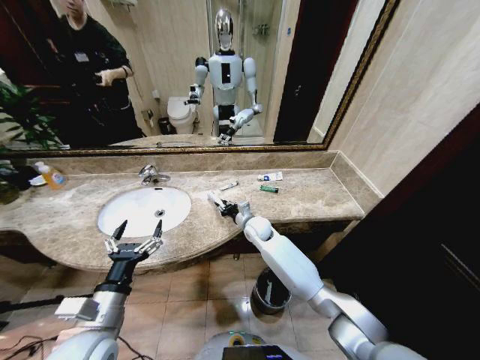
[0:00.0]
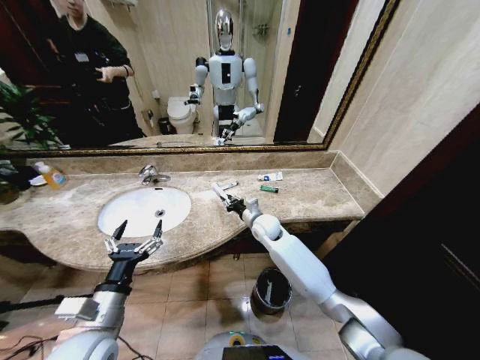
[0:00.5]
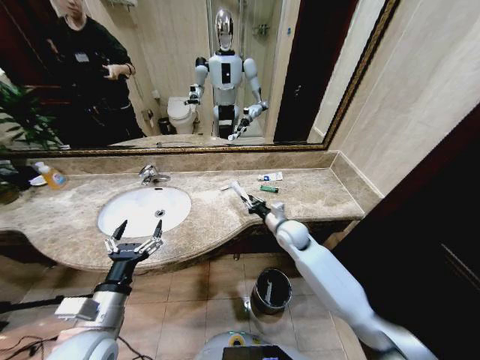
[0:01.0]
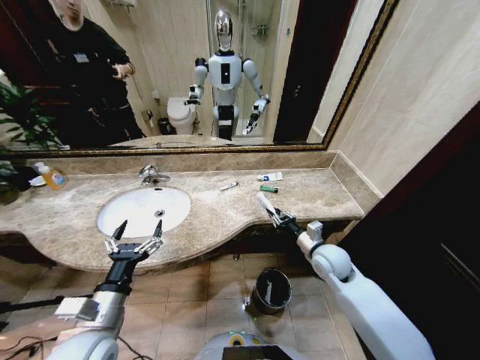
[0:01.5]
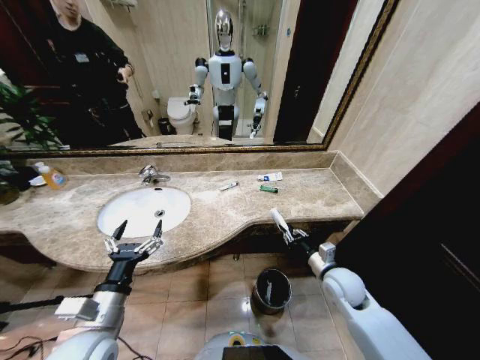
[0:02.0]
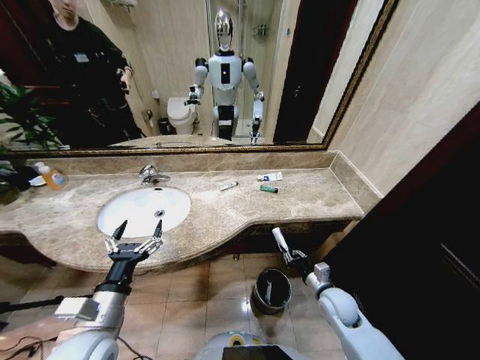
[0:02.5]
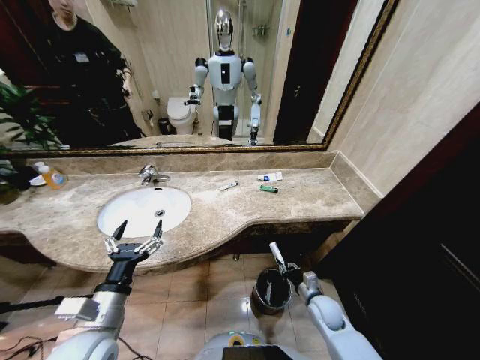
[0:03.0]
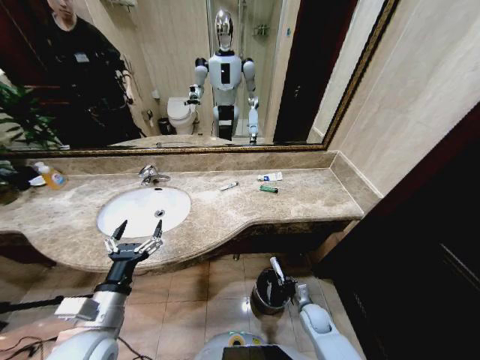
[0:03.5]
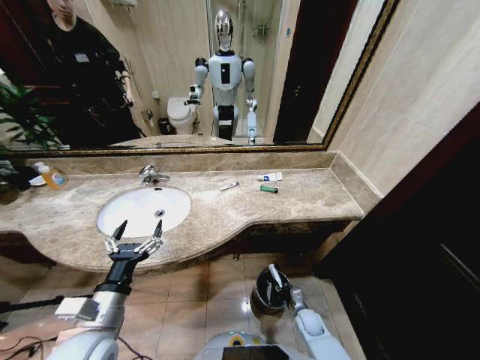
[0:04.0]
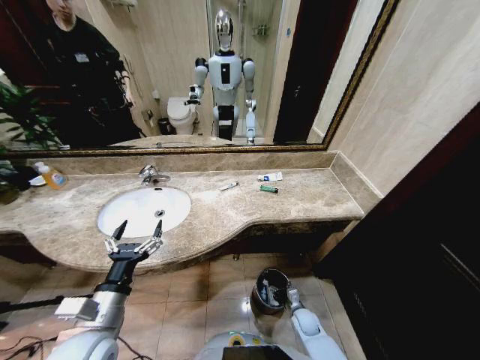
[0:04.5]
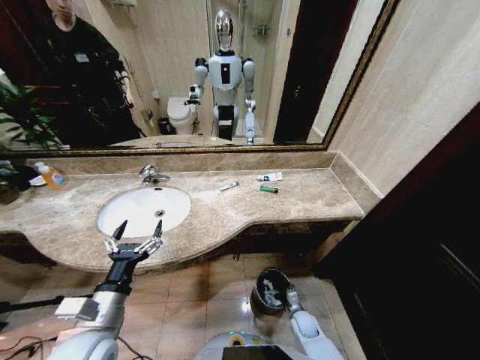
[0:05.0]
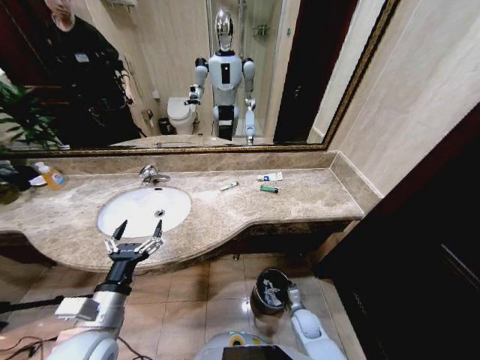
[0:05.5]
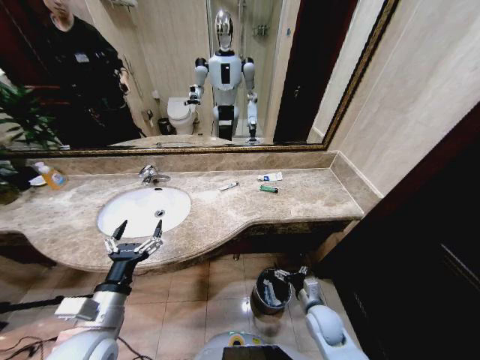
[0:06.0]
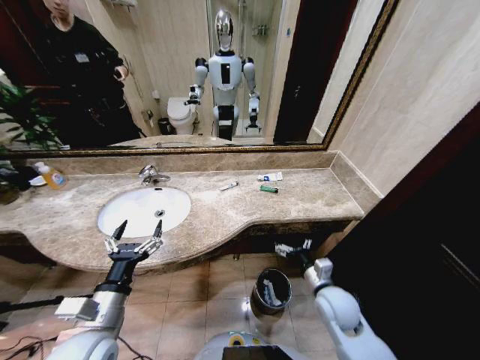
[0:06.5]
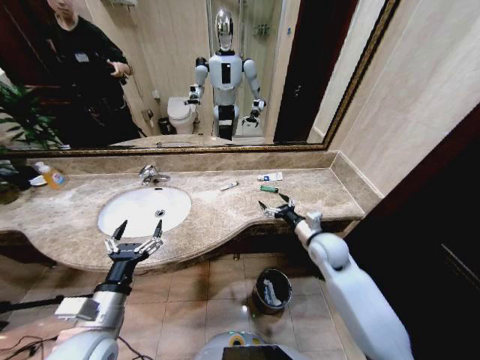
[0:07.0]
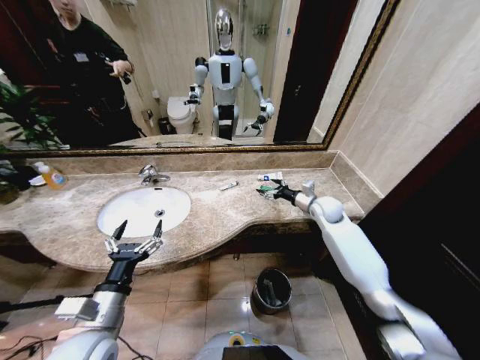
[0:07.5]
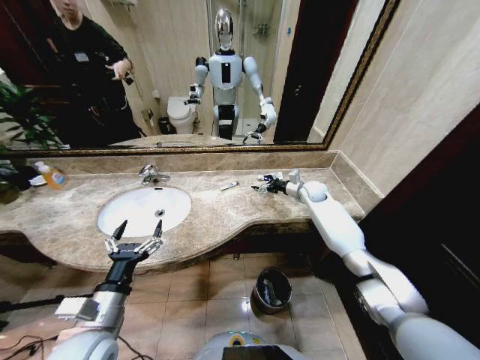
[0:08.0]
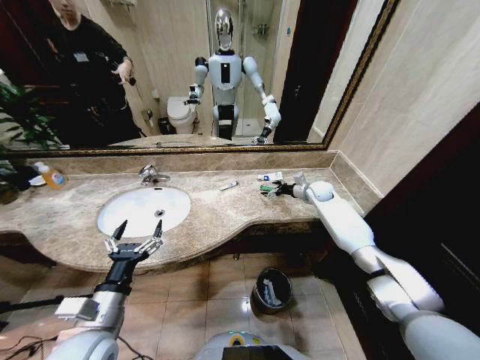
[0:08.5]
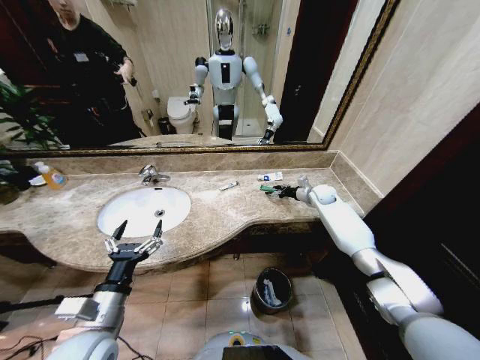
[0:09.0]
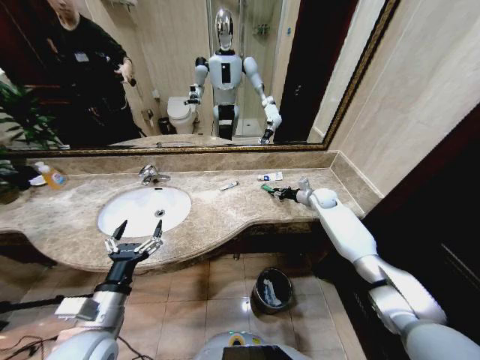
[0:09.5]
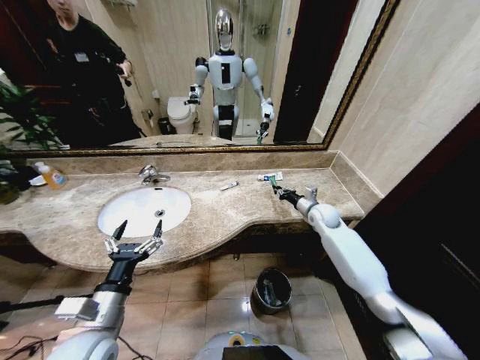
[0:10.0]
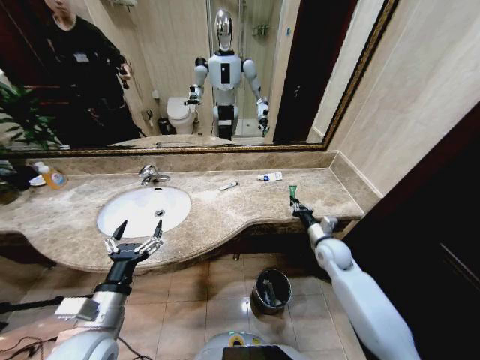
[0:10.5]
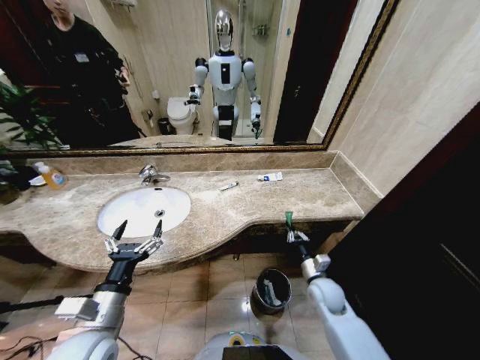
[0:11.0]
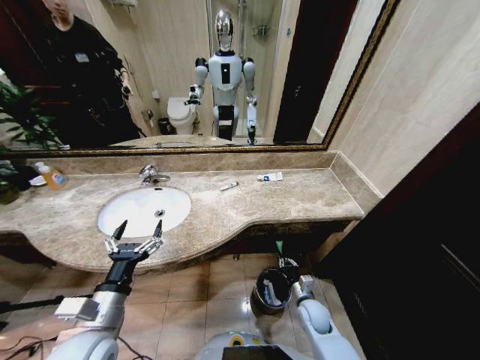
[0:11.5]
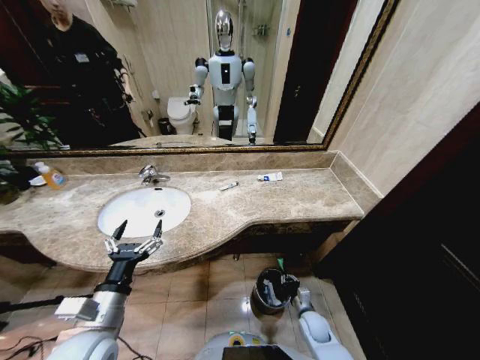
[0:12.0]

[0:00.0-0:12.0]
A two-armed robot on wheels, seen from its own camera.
Task of the whole recording: Pick up the trash from the sink and place it in the trash bin.
0:00.0 to 0:02.0: The right gripper is displaced to the right and backward by approximately 30 cm.
0:02.0 to 0:04.0: The right gripper shifts roughly 25 cm downward.
0:04.0 to 0:06.0: The right gripper is displaced upward by some 15 cm, and opens its fingers.
0:06.0 to 0:08.0: The right gripper moves forward and upward, roughly 40 cm.
0:08.0 to 0:10.0: The right gripper moves backward, approximately 10 cm, and closes.
0:10.0 to 0:12.0: The right gripper moves backward and downward, approximately 40 cm.

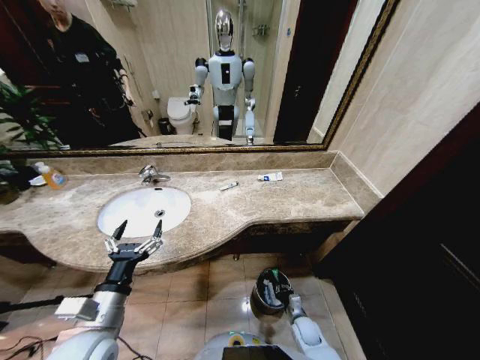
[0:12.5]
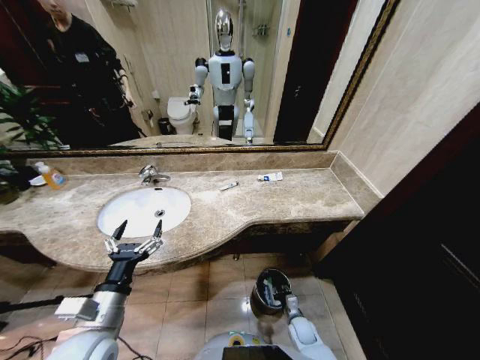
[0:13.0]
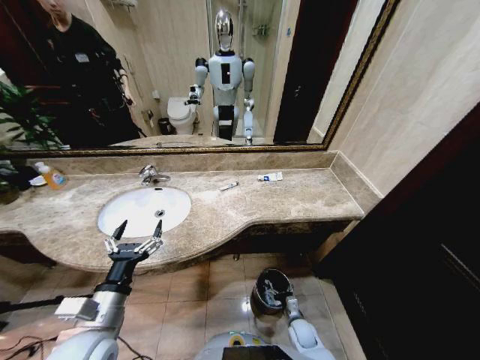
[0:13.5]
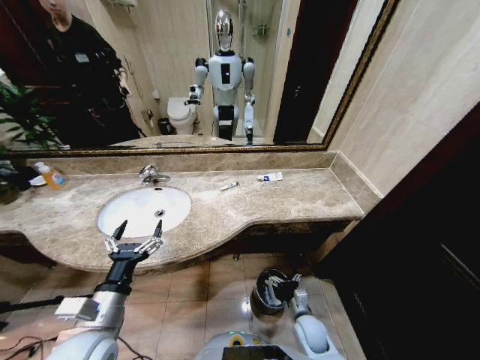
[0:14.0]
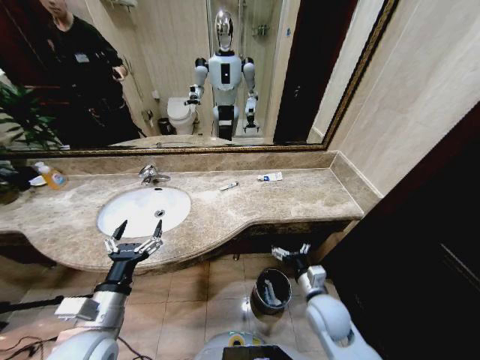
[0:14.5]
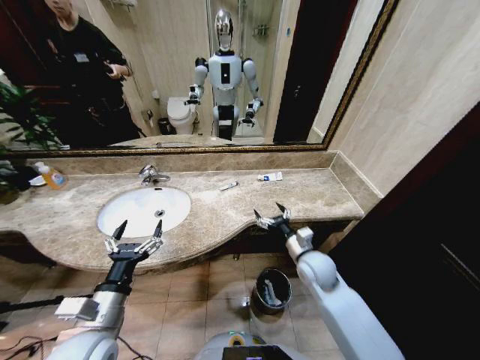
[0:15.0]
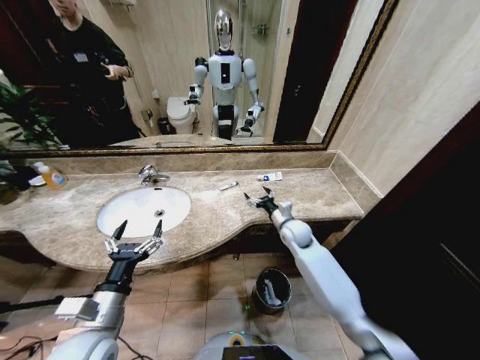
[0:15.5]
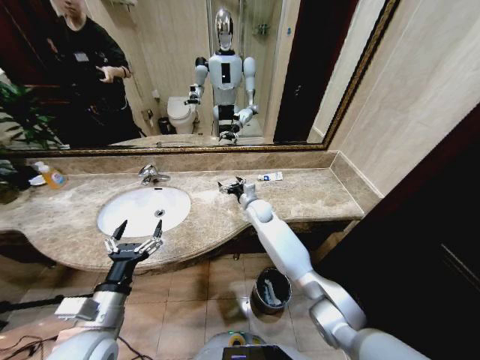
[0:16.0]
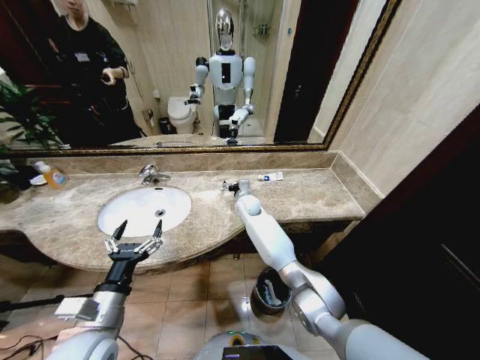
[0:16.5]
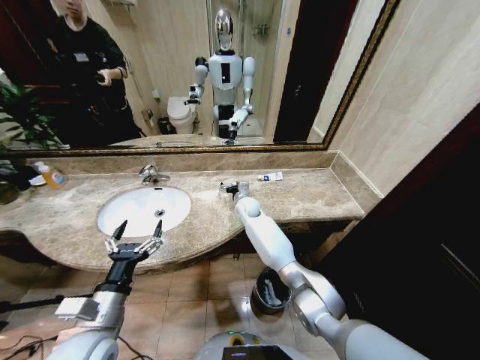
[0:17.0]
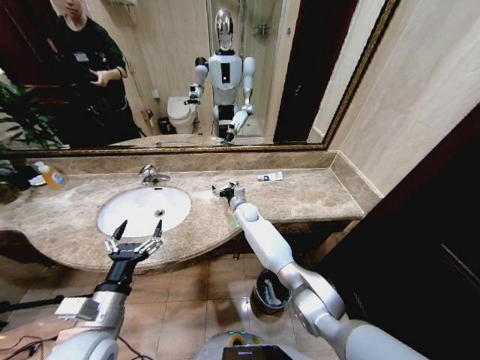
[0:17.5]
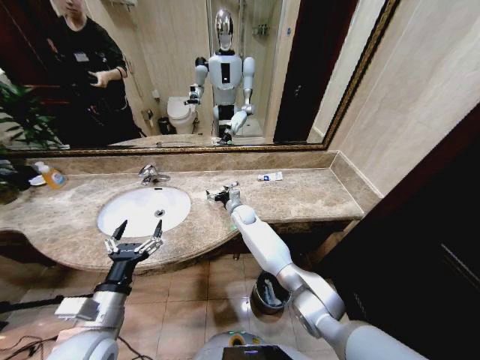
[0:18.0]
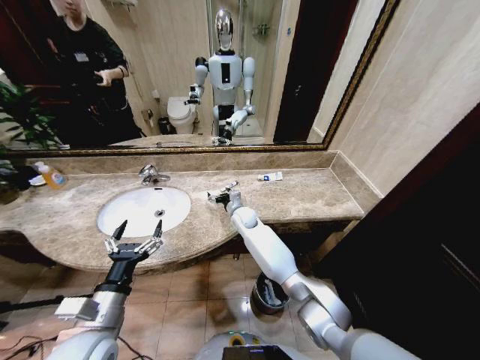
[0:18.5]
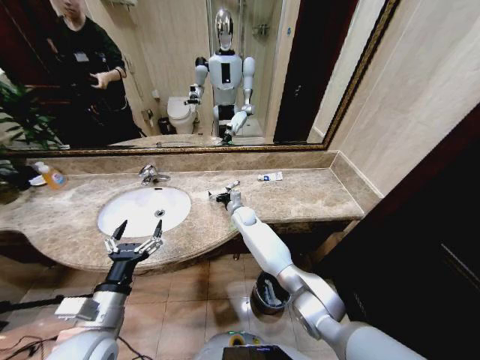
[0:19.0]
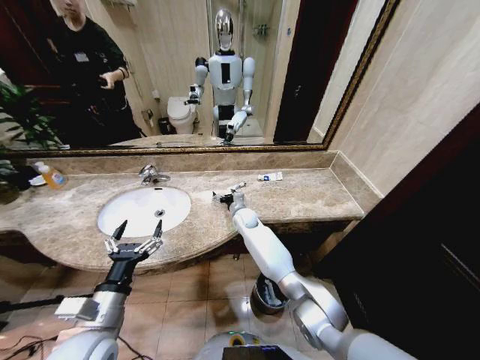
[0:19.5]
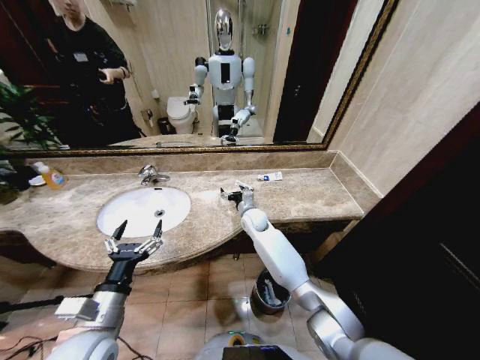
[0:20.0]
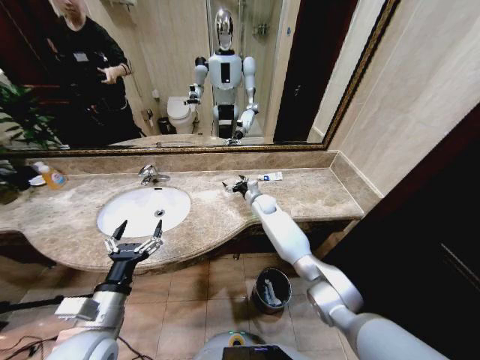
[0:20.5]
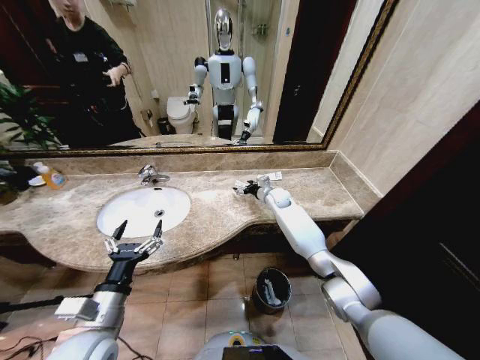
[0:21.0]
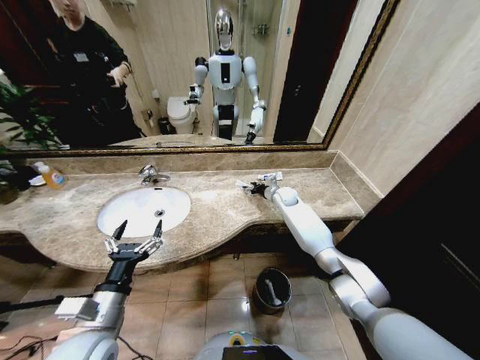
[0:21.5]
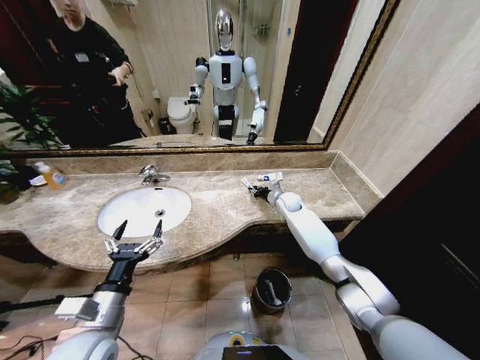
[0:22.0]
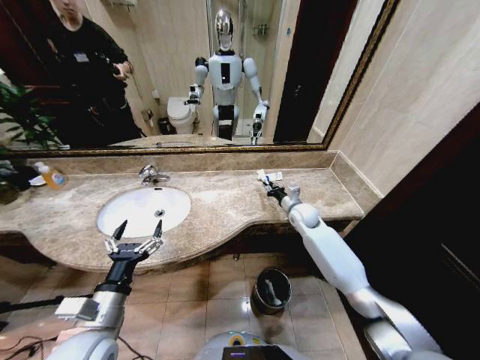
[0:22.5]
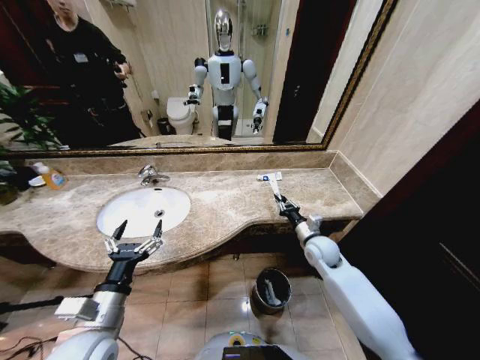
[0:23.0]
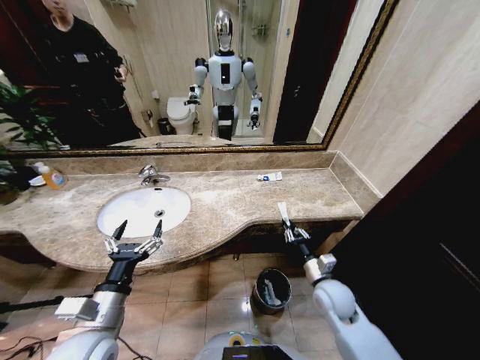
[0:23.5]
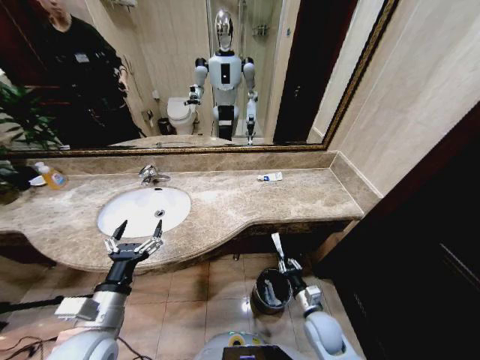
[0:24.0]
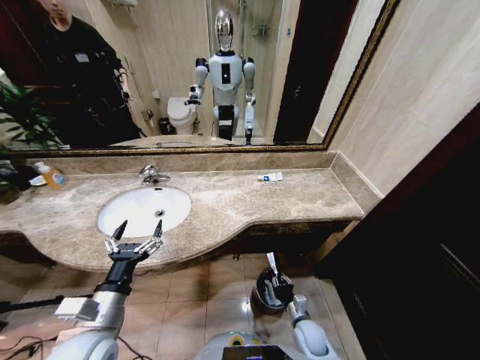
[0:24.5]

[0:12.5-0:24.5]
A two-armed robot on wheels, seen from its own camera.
Task of the whole recording: Pick up the trash from the sink and place it in the trash bin.
0:12.5 to 0:14.5: The right gripper moves upward, some 25 cm, and opens its fingers.
0:14.5 to 0:16.5: The right gripper travels forward and to the left by some 40 cm.
0:16.5 to 0:18.5: The grippers stay close to where they were, moving slightly.
0:18.5 to 0:20.5: The right gripper travels to the right and forward by some 10 cm.
0:20.5 to 0:22.5: The right gripper goes some 15 cm to the right and backward, and closes up.
0:22.5 to 0:24.5: The right gripper heads backward and downward, covering some 40 cm.

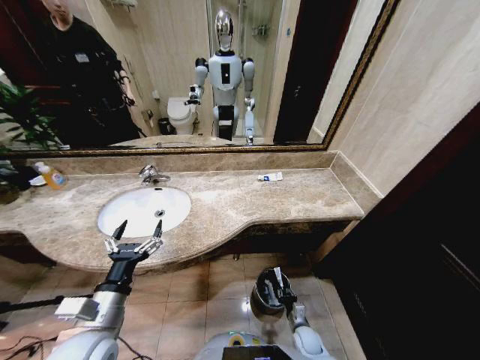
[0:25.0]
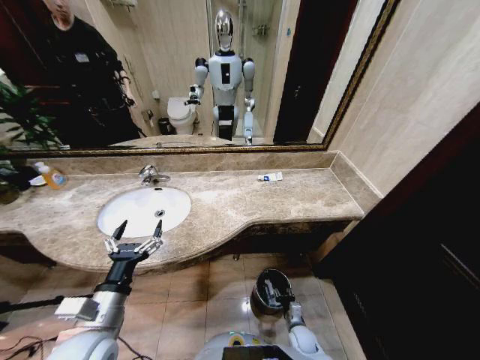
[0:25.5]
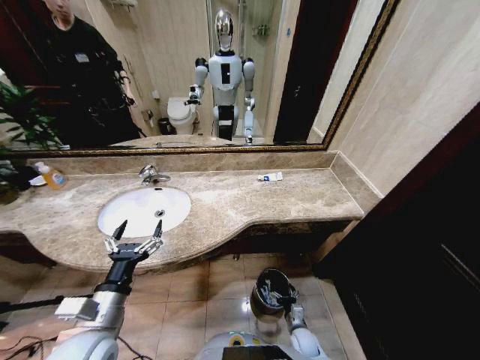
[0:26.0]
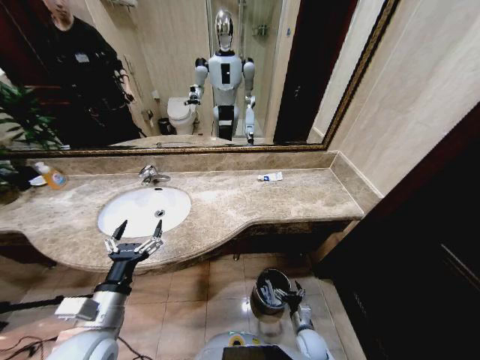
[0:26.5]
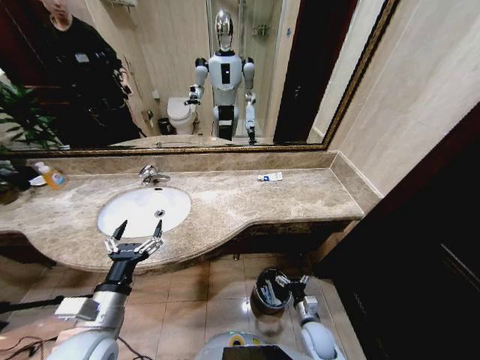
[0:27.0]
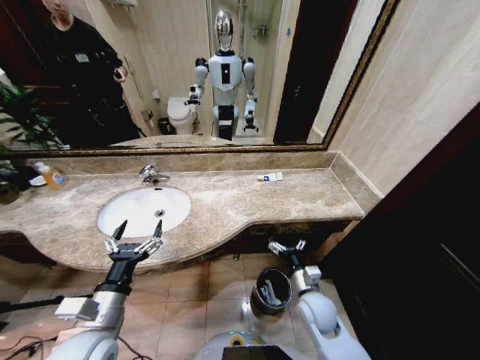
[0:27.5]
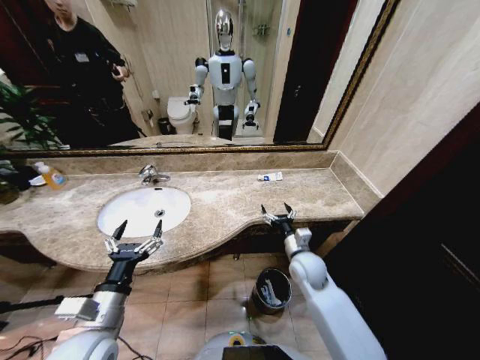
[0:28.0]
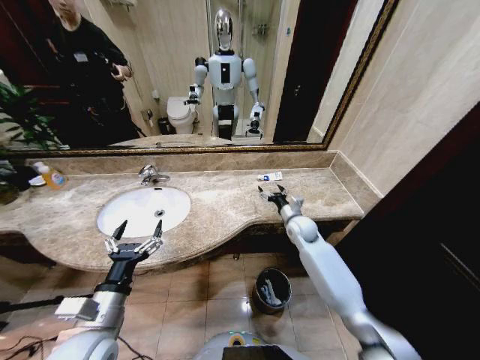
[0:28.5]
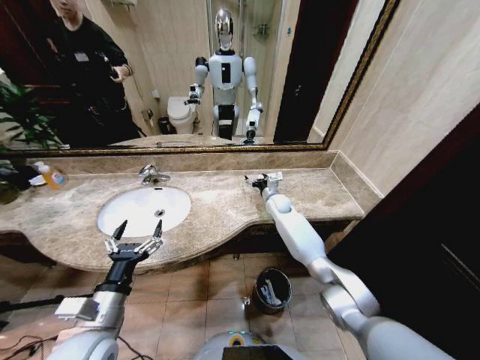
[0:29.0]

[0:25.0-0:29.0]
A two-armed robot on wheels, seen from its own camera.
Task of the whole recording: Pick up the trash from the sink and place it in the trash bin.
0:25.0 to 0:27.0: The right gripper moves upward, about 10 cm, and opens its fingers.
0:27.0 to 0:29.0: The right gripper travels forward and upward by approximately 40 cm.
